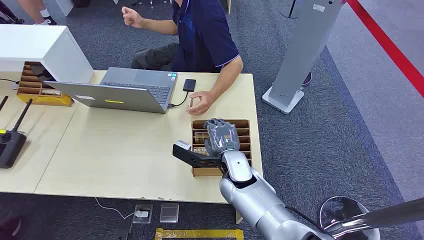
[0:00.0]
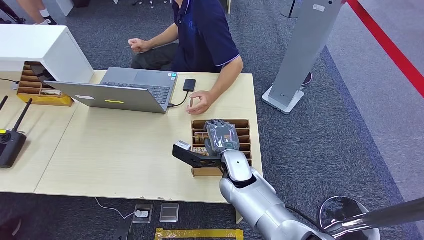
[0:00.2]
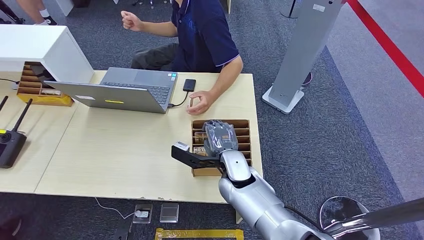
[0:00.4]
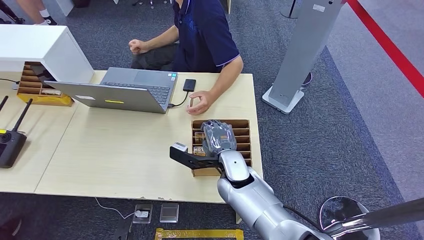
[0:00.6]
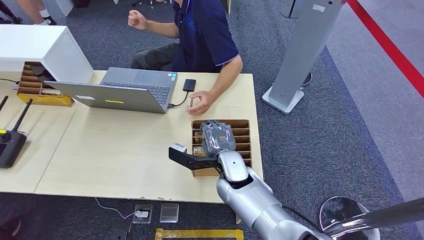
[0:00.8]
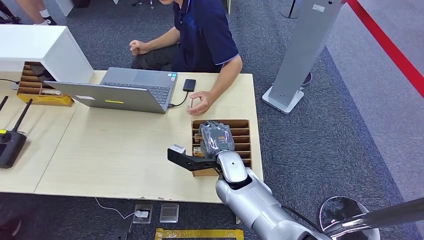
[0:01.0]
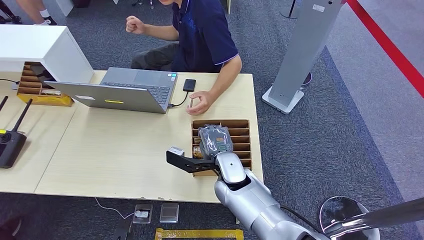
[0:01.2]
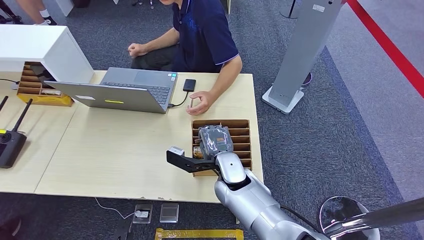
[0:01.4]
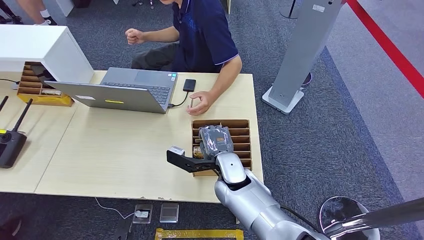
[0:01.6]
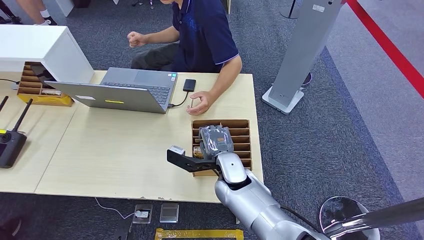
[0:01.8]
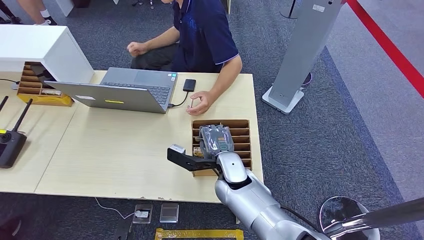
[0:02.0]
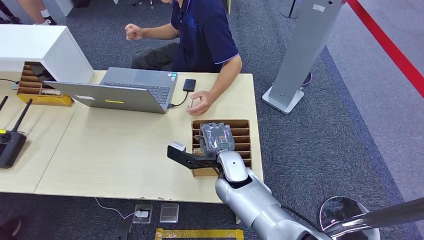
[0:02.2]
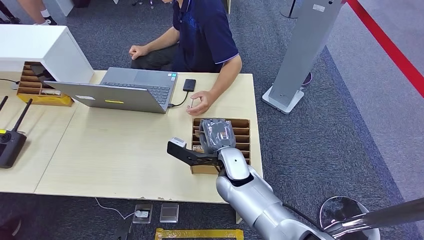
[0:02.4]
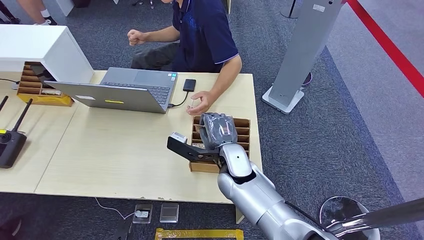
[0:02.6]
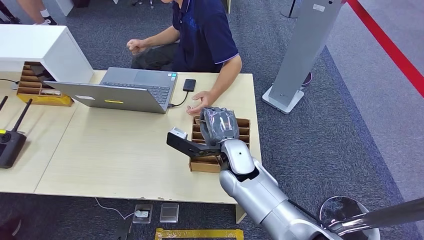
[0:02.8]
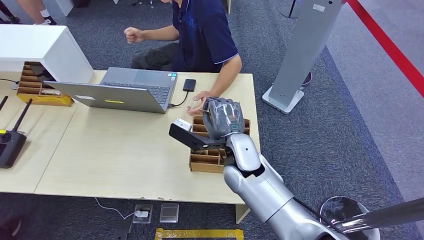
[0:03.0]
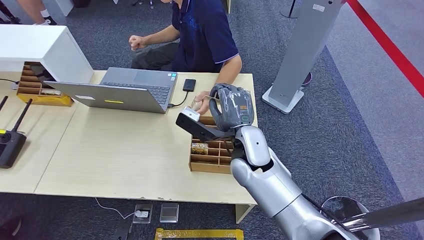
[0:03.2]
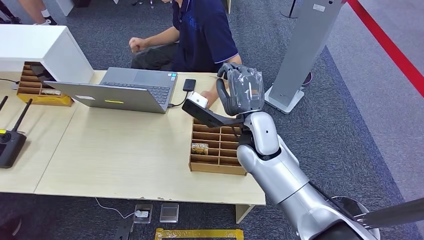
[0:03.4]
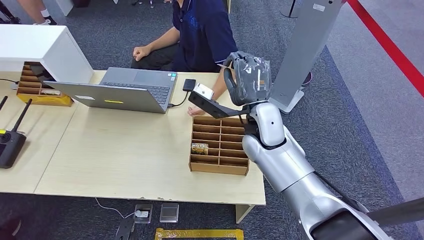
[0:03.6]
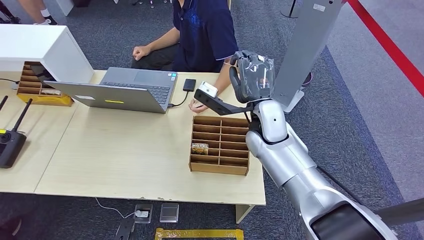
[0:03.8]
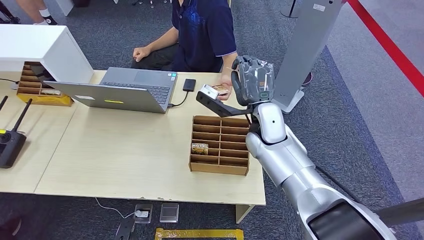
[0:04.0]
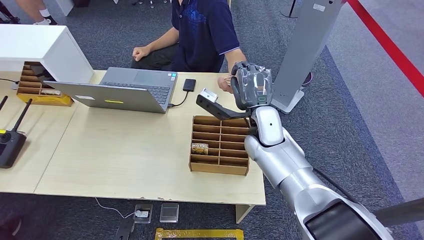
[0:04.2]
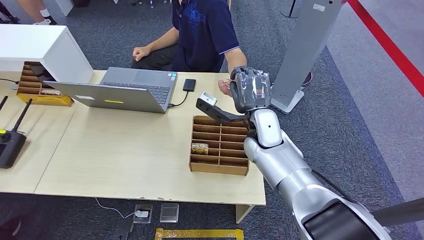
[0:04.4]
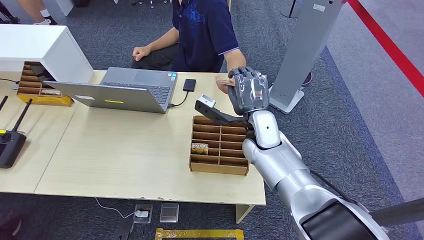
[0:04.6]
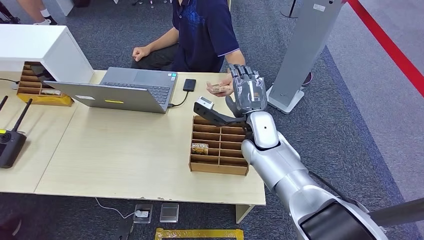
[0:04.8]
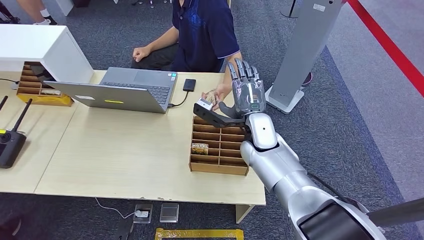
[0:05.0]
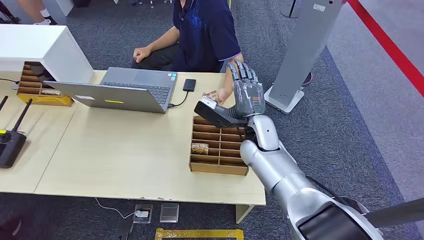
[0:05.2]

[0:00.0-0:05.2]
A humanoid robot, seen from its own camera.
Step, 0:00.0 to 0:02.8: Pick up the room card from the card holder.
Step, 0:03.6 to 0:05.0: Hand the room card to the target.
0:01.8 to 0:03.4: The right hand heads upward, forward and to the right, covering roughly 15 cm.
0:03.4 to 0:05.2: The right hand goes approximately 5 cm downward.
